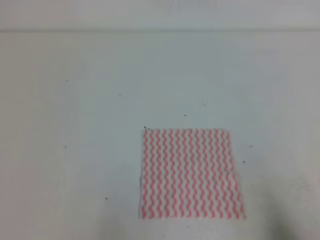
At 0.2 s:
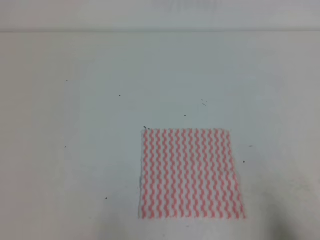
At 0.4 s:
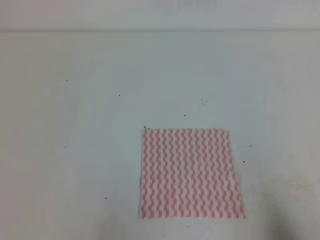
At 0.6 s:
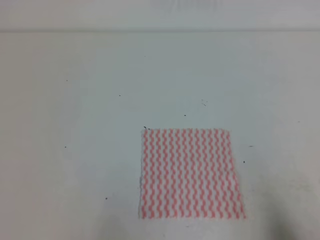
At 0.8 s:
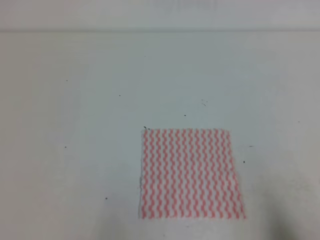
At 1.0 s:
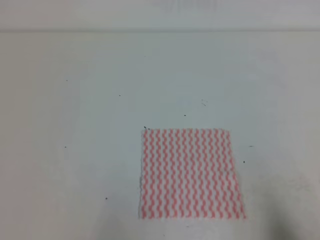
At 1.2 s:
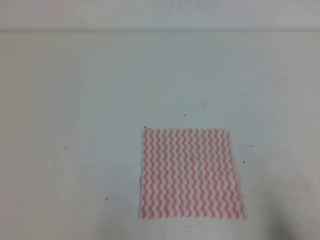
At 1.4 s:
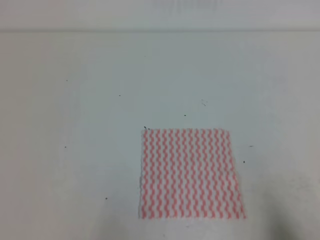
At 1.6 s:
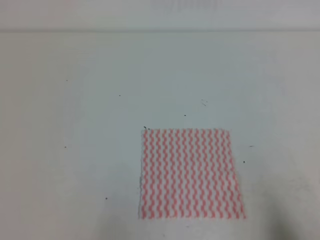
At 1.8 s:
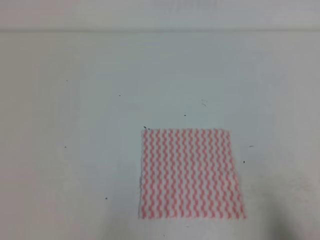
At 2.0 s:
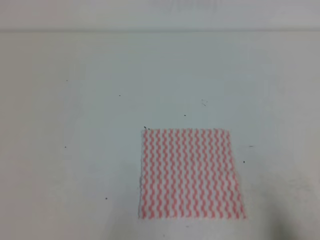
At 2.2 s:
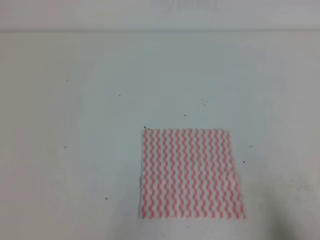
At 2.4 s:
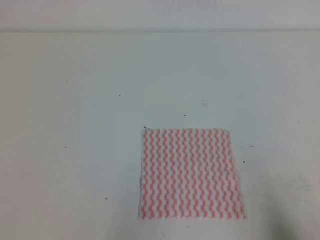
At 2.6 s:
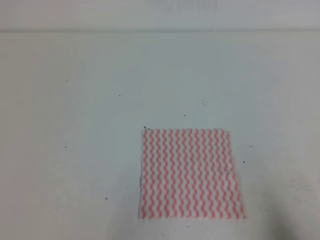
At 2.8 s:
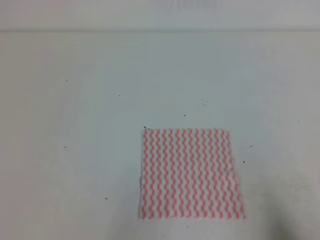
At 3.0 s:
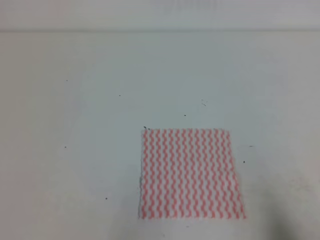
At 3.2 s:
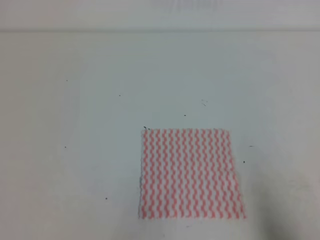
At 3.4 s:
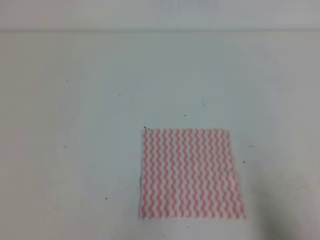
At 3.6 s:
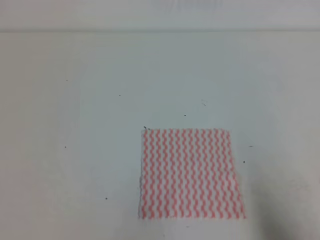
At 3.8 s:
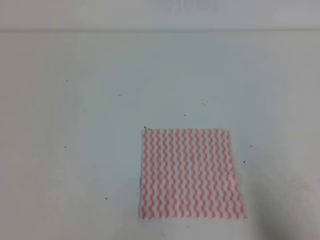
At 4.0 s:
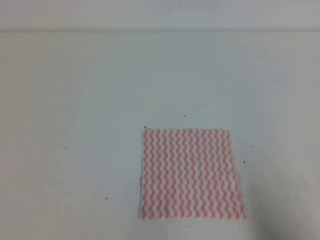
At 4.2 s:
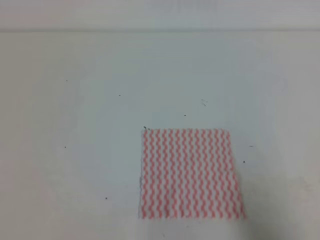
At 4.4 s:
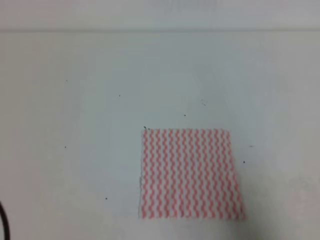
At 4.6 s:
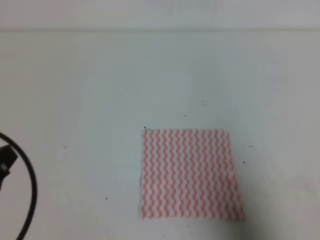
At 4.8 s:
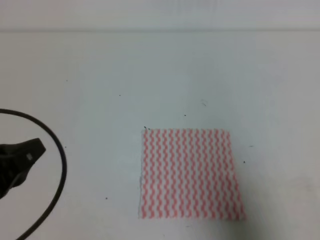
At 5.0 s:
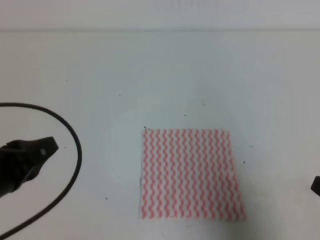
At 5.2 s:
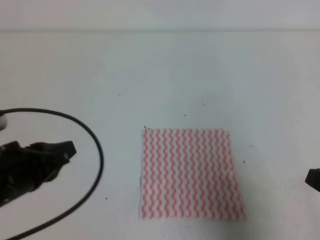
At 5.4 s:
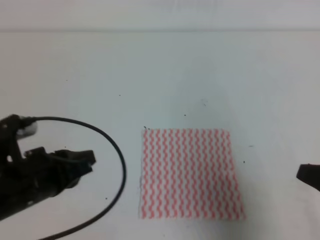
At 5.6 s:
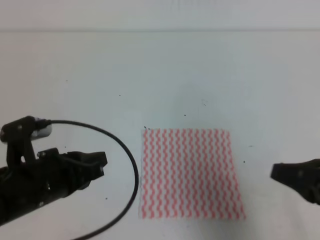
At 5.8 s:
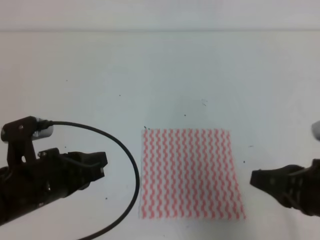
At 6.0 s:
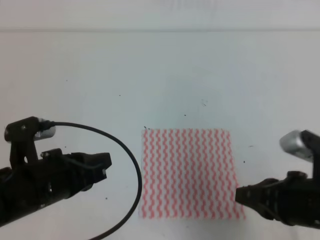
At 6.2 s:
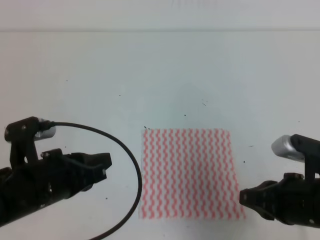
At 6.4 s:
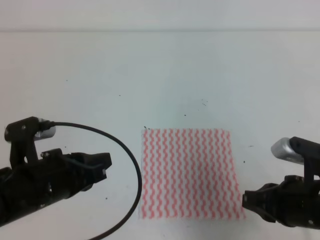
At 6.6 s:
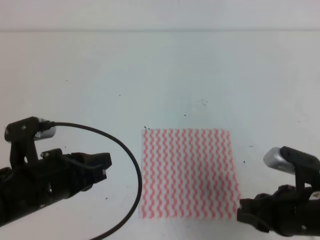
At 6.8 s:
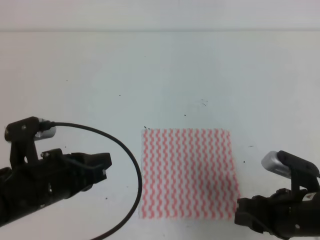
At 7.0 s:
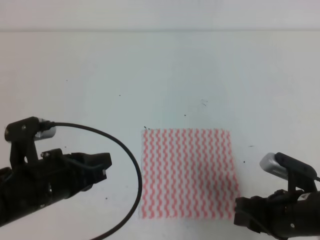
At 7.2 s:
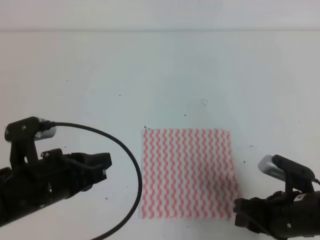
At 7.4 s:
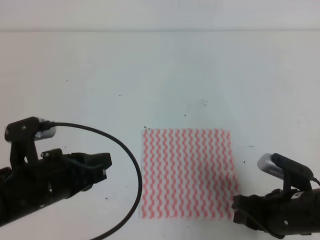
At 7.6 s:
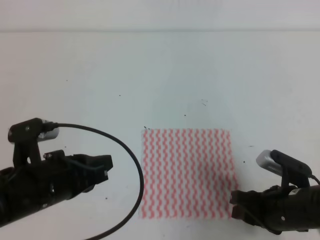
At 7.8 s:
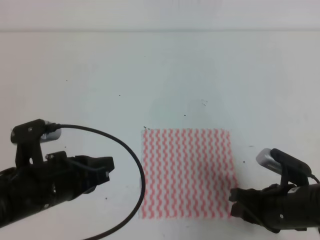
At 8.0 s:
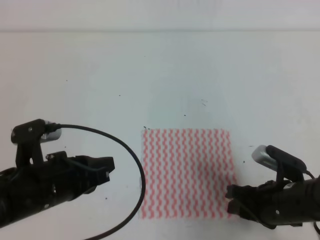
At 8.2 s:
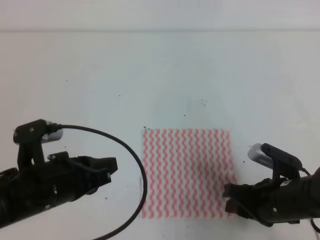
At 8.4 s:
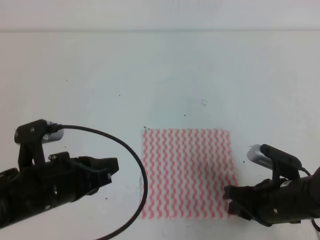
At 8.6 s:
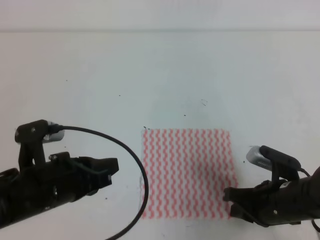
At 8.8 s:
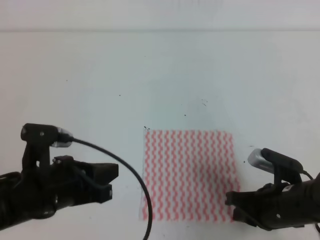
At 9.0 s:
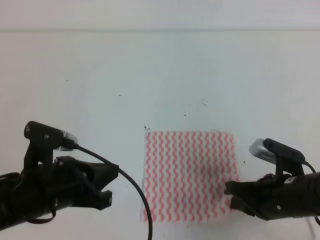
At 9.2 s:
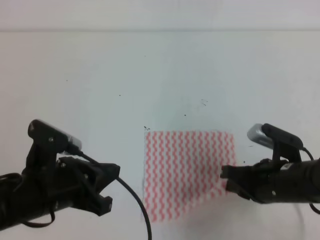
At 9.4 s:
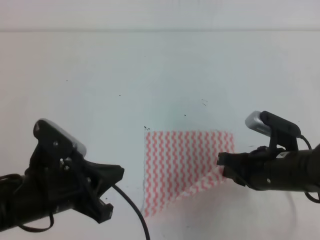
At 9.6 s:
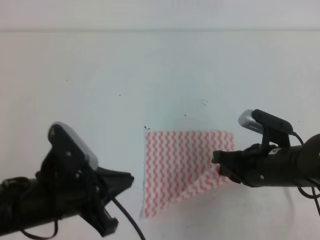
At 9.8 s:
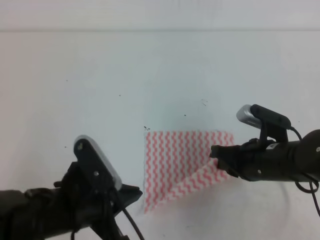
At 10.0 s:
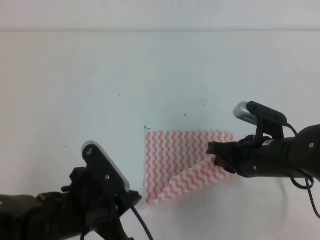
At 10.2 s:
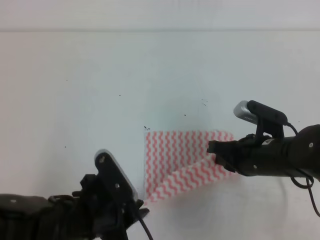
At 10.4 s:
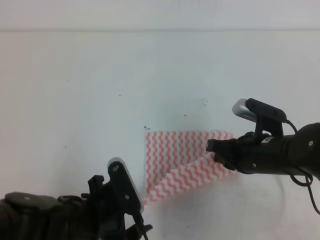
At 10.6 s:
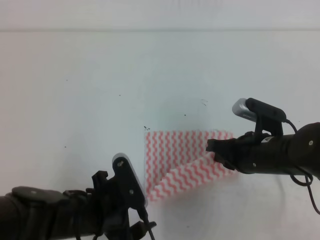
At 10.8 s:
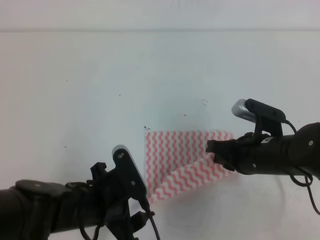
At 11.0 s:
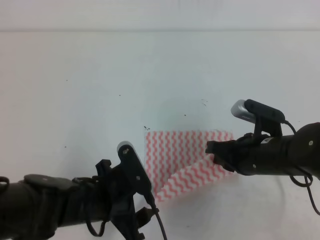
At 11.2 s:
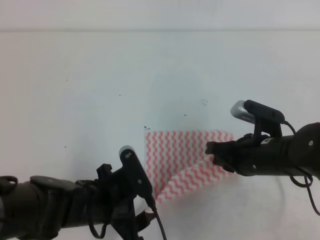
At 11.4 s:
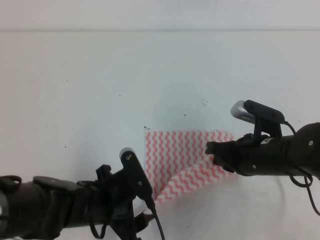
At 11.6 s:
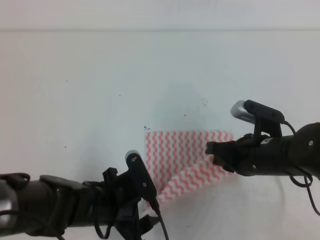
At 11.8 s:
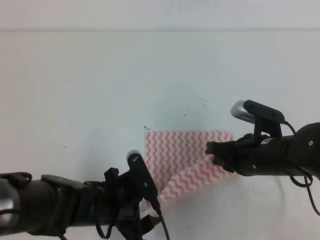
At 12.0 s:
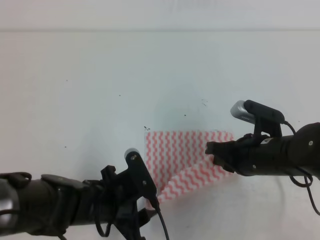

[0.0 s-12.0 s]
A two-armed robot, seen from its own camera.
0.0 to 1.6 s: Both grippers stay about where they are.
3.0 to 4.4 s: Both grippers move upward, approximately 5 cm.
4.4 to 6.0 s: The right gripper heads forward and to the left, covering approximately 15 cm; the left gripper goes roughly 15 cm to the right and forward.
6.0 to 7.6 s: The right gripper heads downward, covering some 10 cm, and opens its fingers.
7.6 to 9.0 s: The right gripper closes up.
9.0 to 10.4 s: The left gripper goes about 5 cm downward and to the right, and opens its fingers; the right gripper heads forward, covering about 5 cm.
10.4 to 12.0 s: The left gripper ends up roughly 5 cm from where it was.

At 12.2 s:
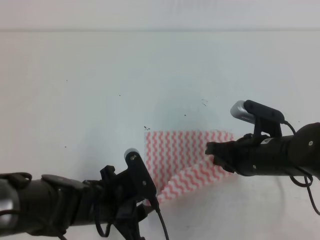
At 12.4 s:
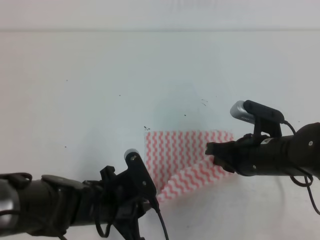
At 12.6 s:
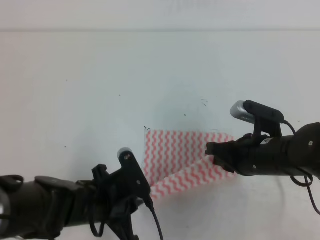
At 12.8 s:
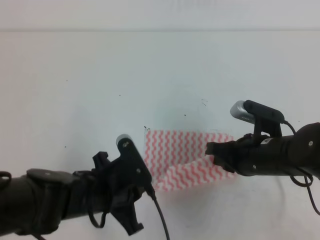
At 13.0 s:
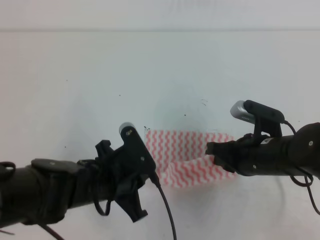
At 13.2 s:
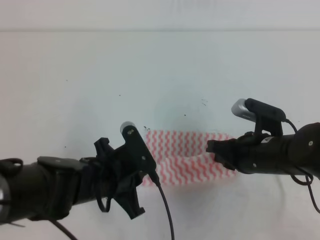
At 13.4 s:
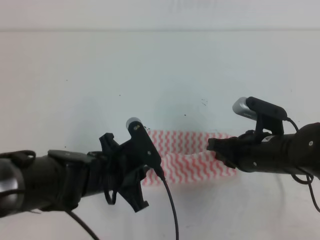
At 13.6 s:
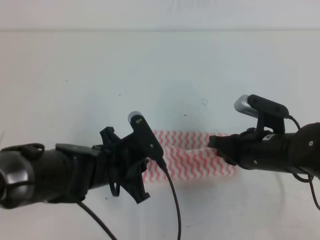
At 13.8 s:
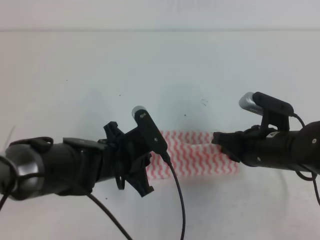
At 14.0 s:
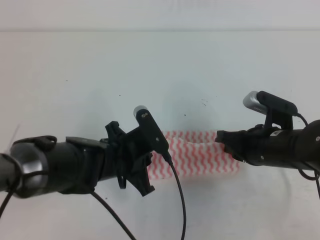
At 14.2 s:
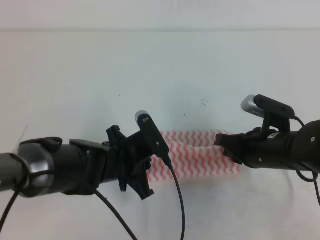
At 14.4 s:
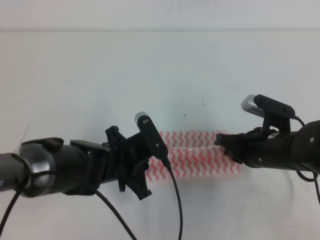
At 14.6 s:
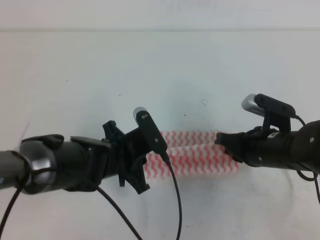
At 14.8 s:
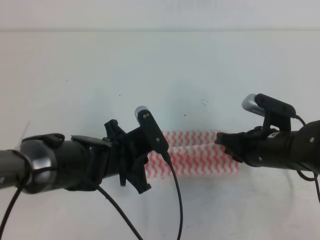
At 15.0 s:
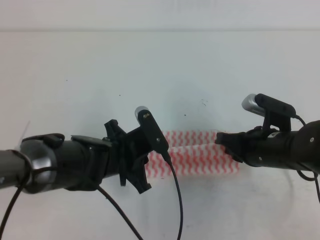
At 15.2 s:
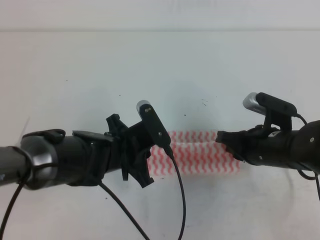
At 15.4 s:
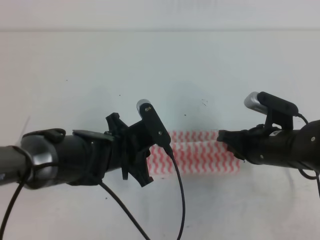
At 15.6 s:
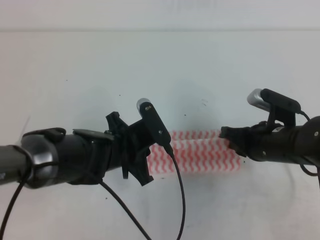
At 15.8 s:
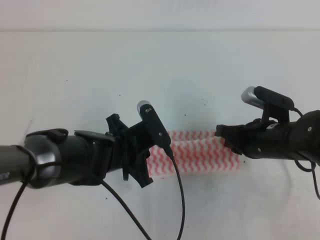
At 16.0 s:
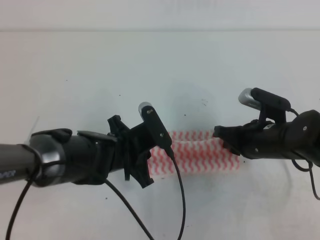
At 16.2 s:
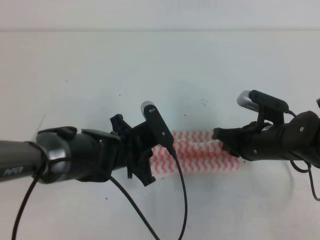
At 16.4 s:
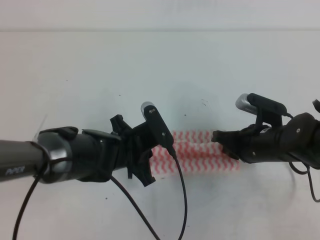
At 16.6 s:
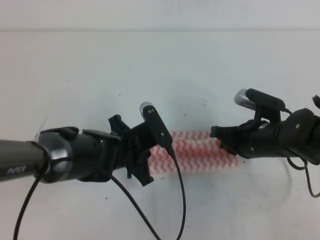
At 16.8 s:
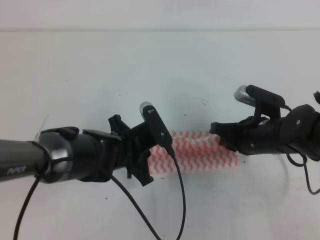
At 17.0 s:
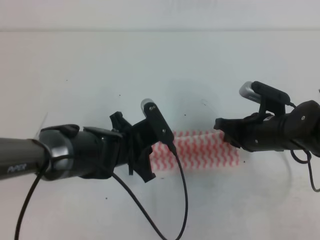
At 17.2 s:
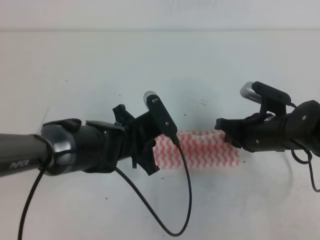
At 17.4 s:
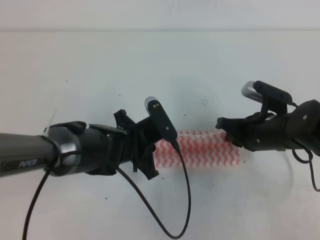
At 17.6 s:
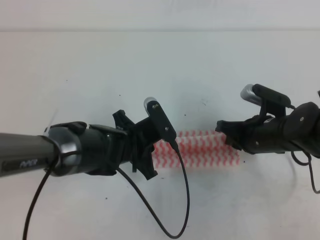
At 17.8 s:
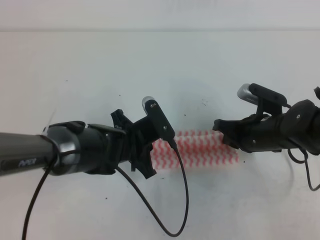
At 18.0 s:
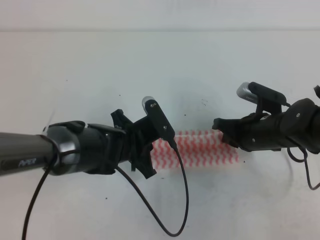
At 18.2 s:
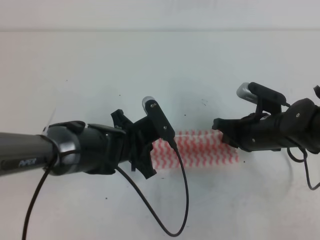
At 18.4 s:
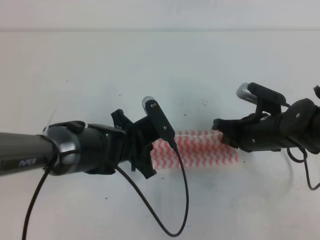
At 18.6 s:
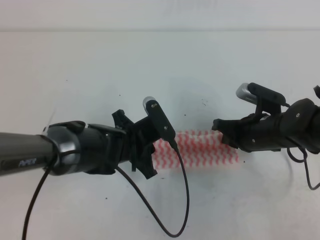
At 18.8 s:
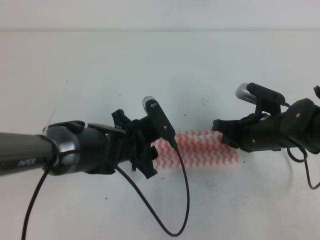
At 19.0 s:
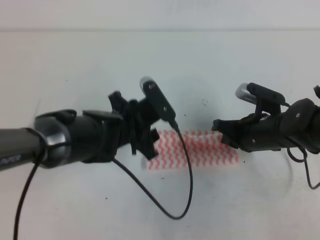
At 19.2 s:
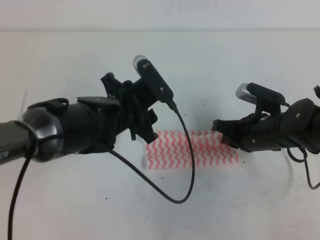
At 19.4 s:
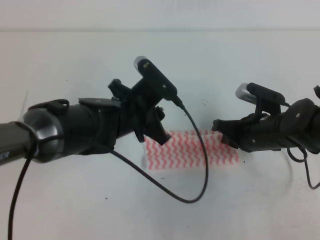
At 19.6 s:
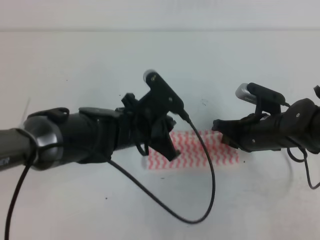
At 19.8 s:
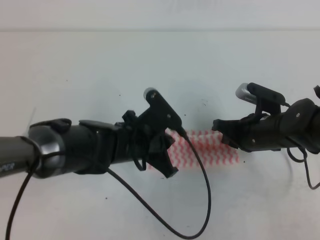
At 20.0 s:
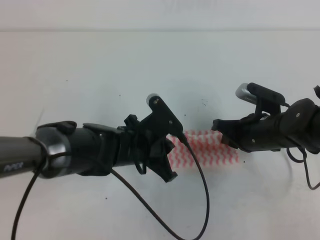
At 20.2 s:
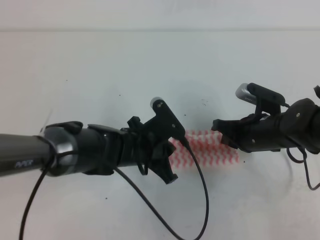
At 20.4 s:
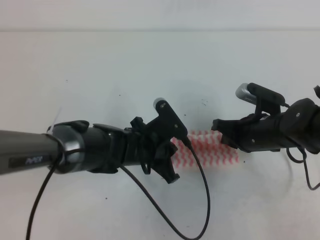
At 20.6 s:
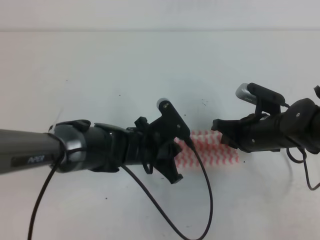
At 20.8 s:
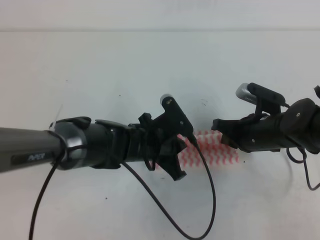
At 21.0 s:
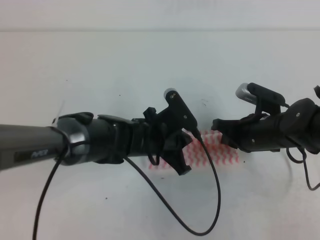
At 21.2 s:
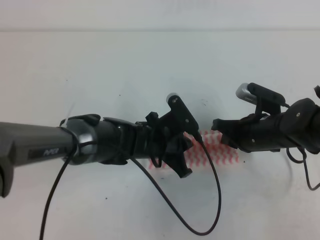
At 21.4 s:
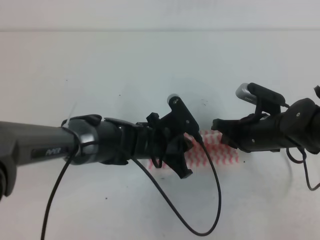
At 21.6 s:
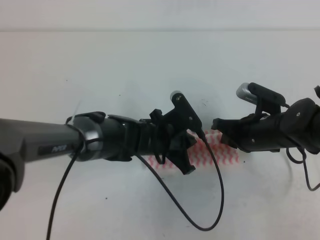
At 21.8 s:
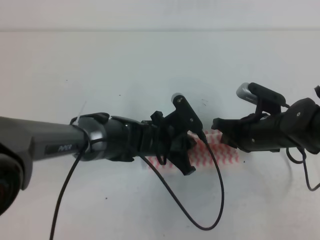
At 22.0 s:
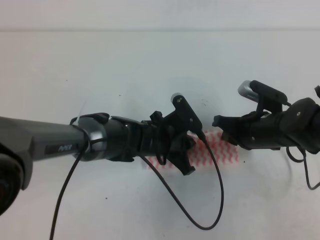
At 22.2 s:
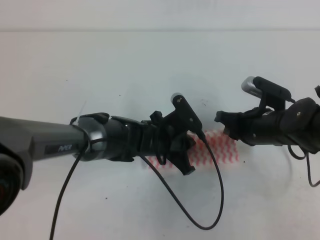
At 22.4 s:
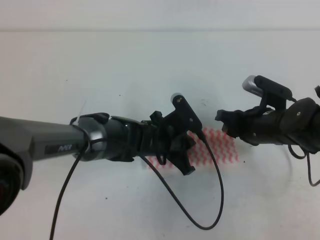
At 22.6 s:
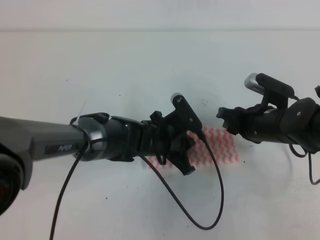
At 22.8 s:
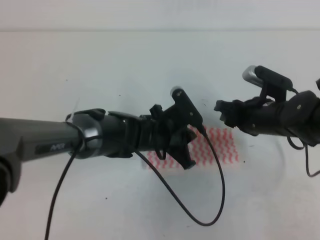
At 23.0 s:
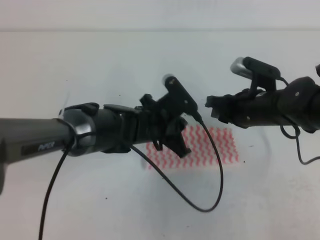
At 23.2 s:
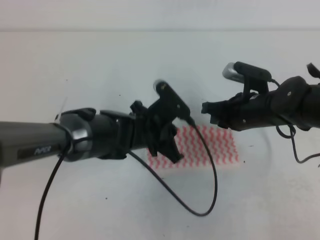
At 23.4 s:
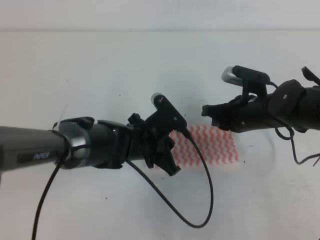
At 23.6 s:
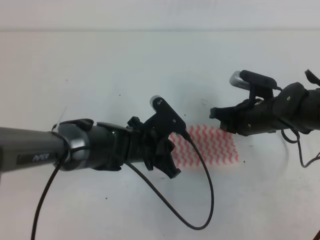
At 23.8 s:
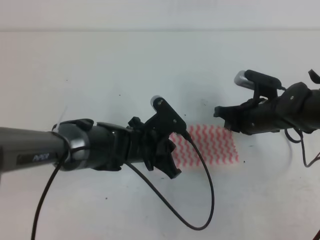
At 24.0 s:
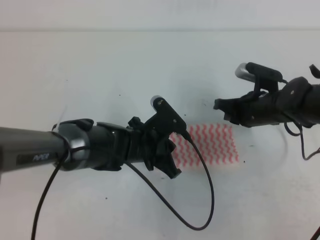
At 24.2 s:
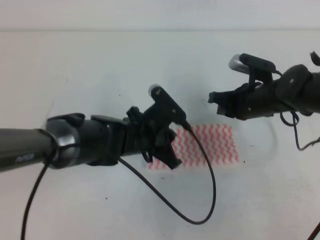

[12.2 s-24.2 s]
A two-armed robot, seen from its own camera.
Step, 13.8 to 18.0 s: Tidy up the towels.
12.2 to 13.8 s: The left gripper is displaced forward by about 5 cm, and closes up.
13.8 to 18.2 s: The grippers move only a little.
18.2 to 19.8 s: The left gripper opens and closes again.
19.8 to 21.2 s: The grippers move only a little.
21.2 to 22.6 s: The right gripper opens up.
22.6 to 24.2 s: The right gripper closes its fingers.
